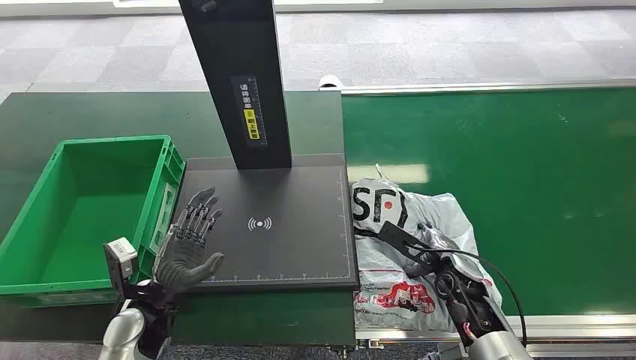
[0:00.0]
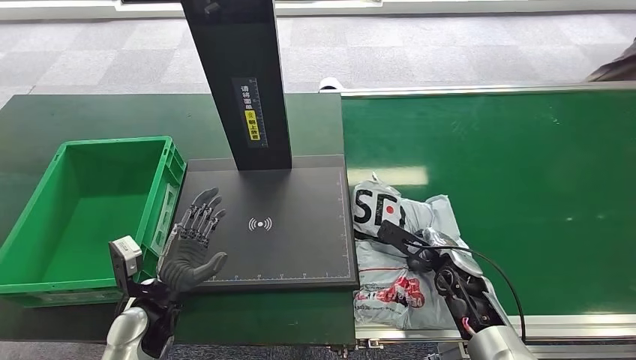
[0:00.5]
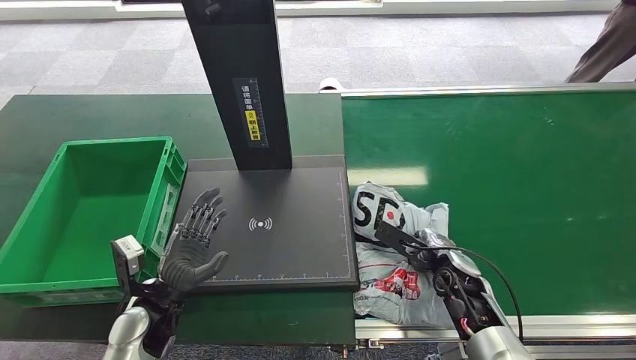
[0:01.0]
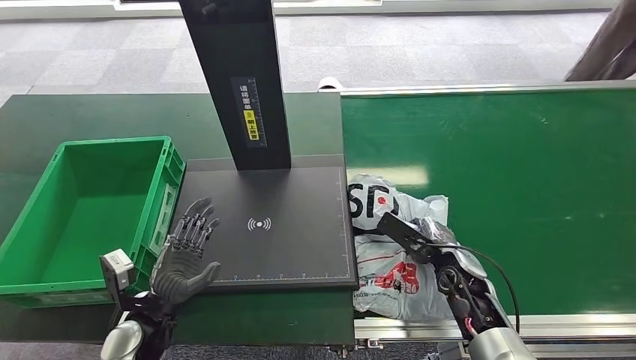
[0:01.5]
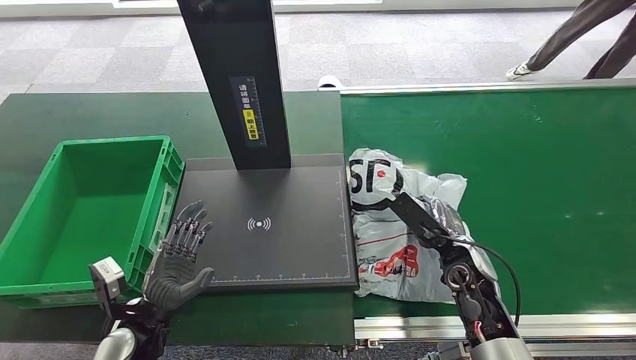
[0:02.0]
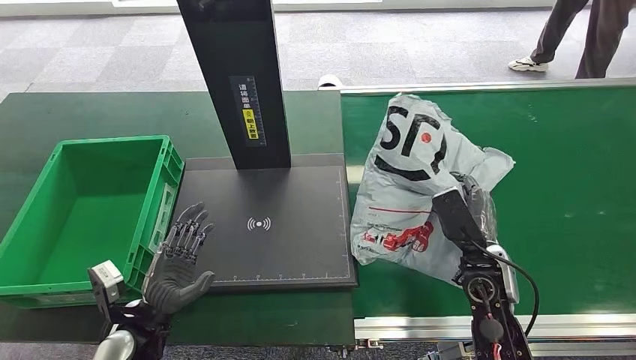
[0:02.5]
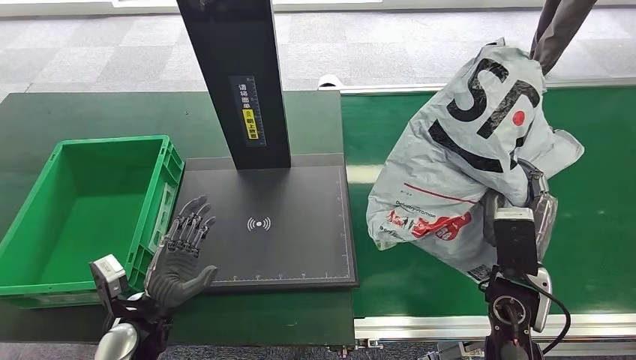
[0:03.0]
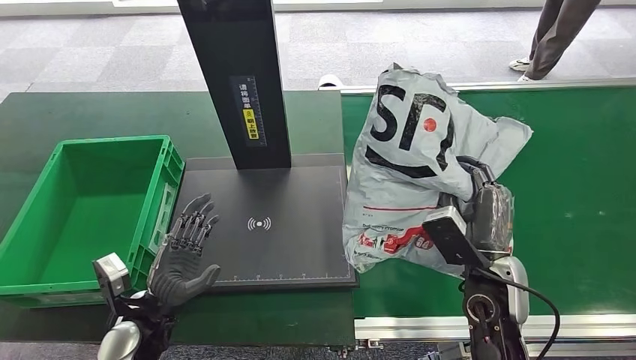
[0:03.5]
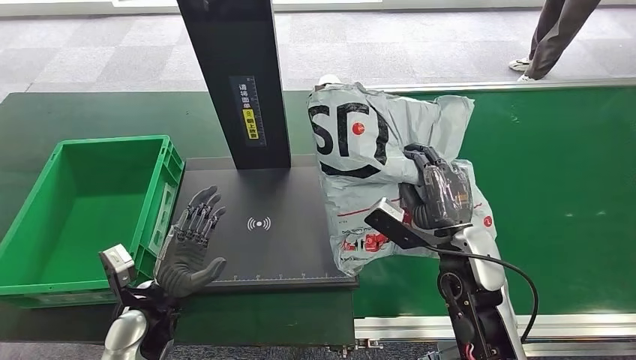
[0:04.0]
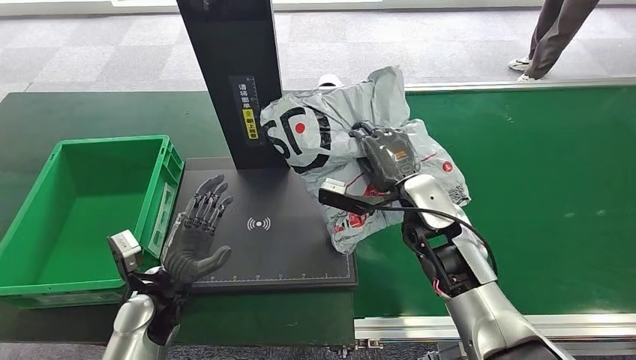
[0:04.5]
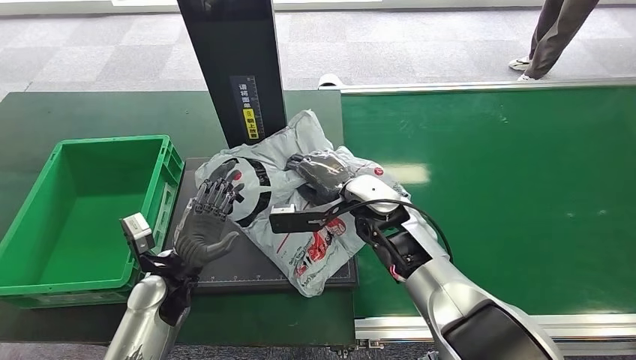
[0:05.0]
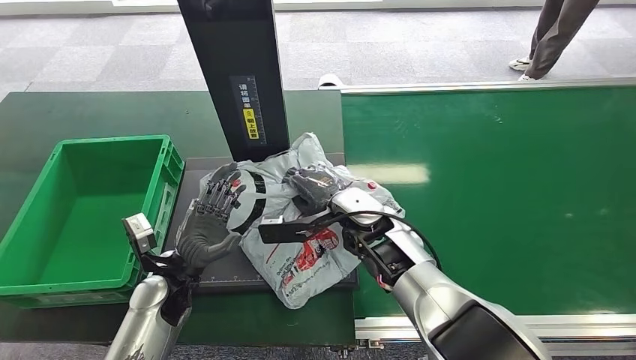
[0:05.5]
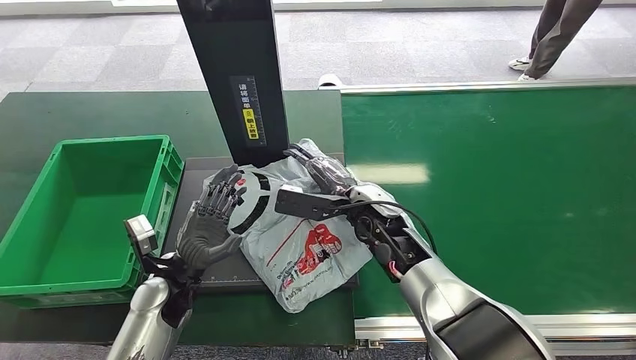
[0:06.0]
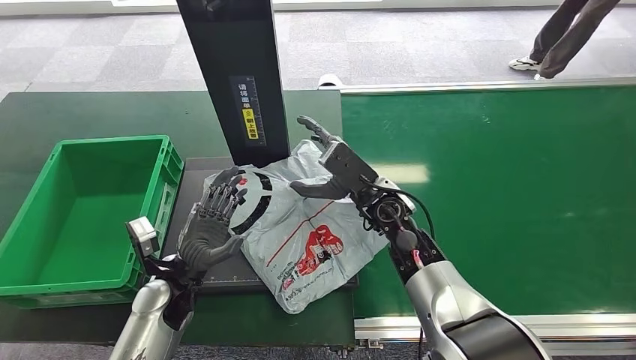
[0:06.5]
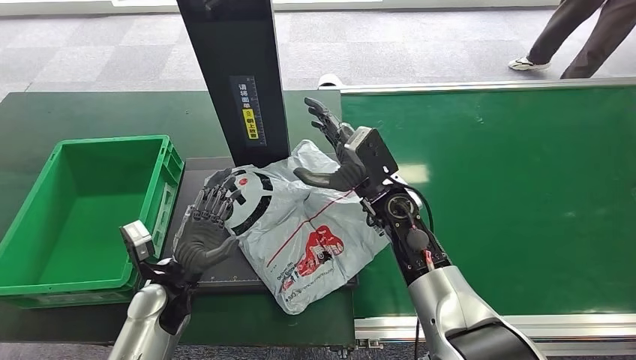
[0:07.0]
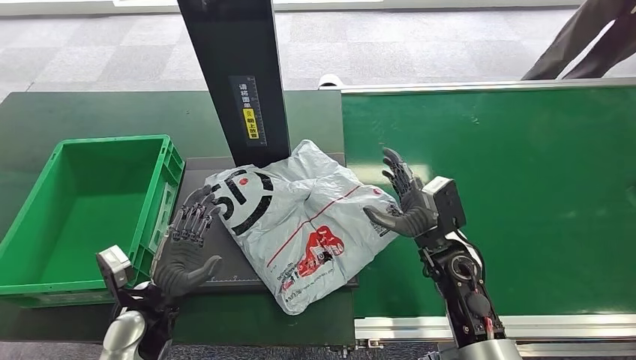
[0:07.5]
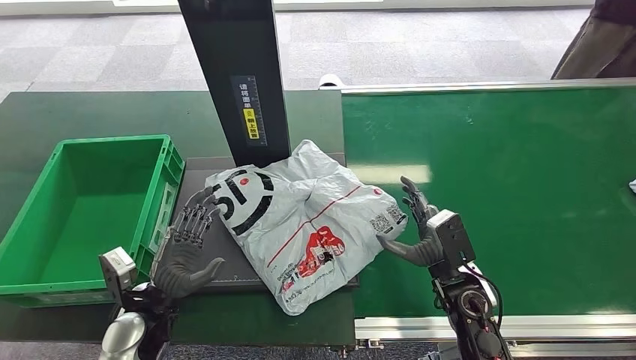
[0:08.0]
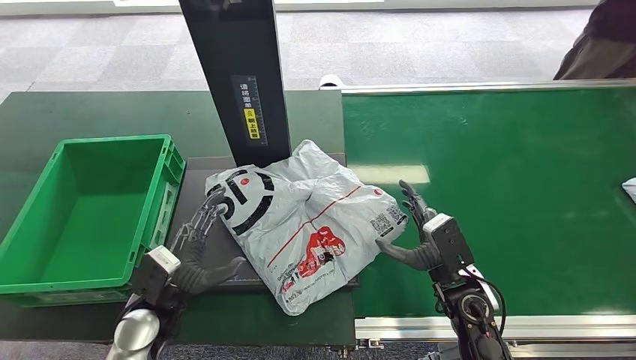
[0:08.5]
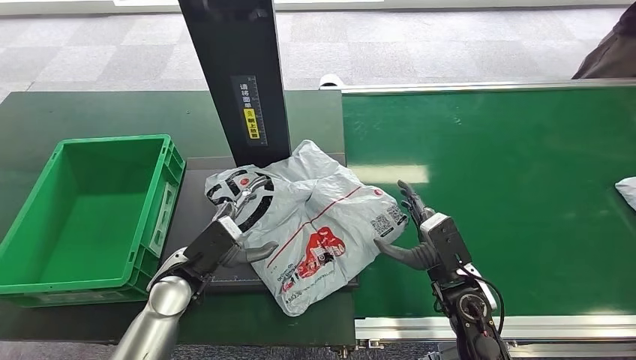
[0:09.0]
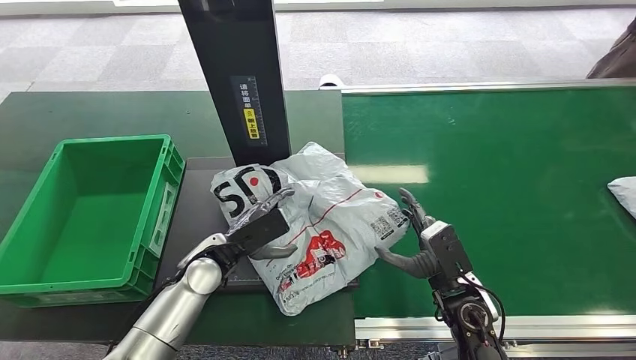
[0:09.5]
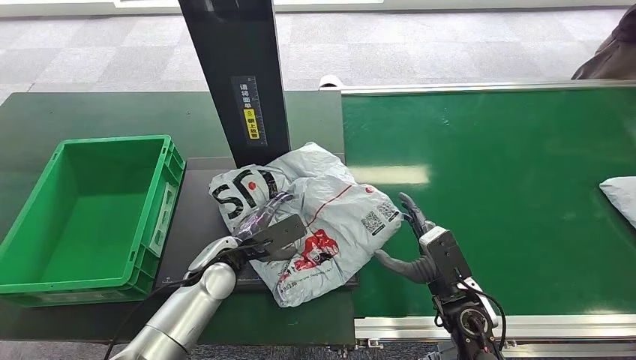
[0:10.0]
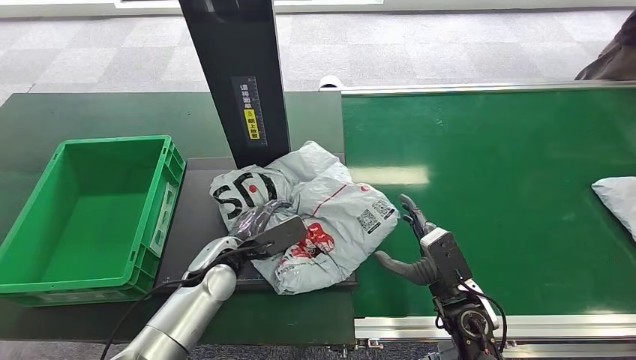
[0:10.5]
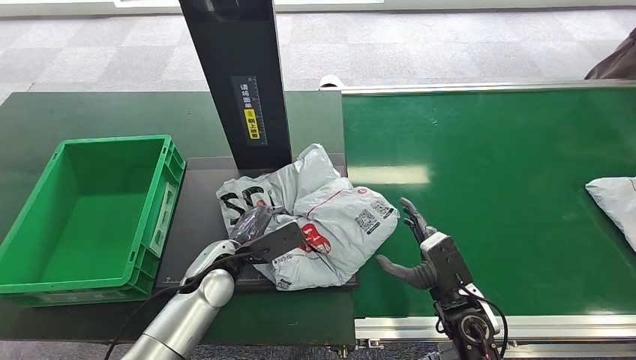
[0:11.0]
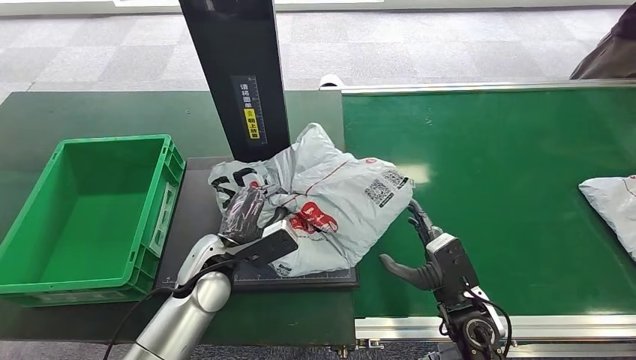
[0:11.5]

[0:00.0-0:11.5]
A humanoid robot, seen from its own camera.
Step, 0:00.0 to 0:02.5: Pick up the package from the conveyor belt.
Step, 0:03.0 to 0:06.5: Place the package onto the inbound machine.
0:06.0 to 0:07.5: The right hand travels to the right and backward by roughly 15 cm. The left hand changes place by some 5 cm.
0:07.5 to 0:09.5: The right hand moves backward, roughly 5 cm; the left hand is displaced forward and to the right by roughly 10 cm.

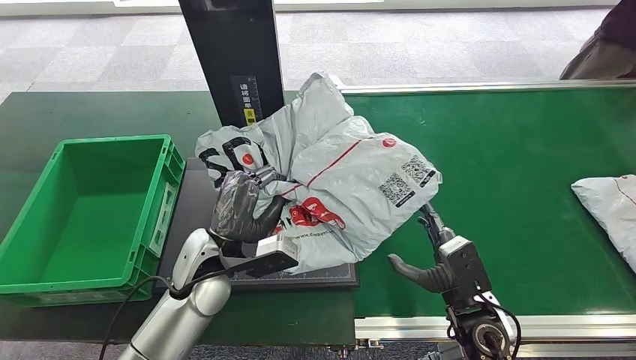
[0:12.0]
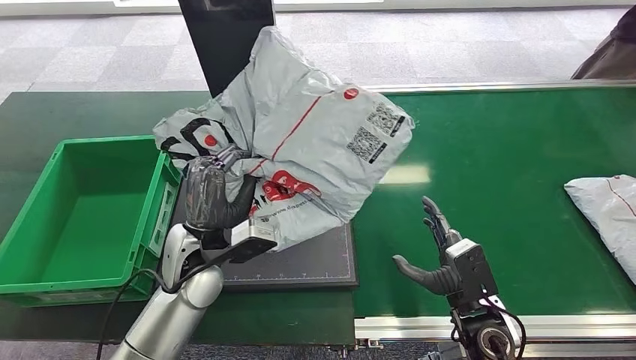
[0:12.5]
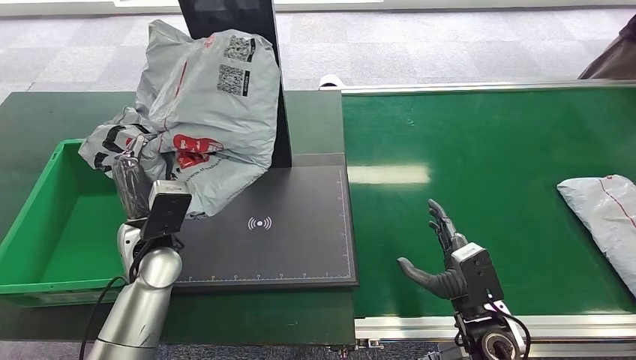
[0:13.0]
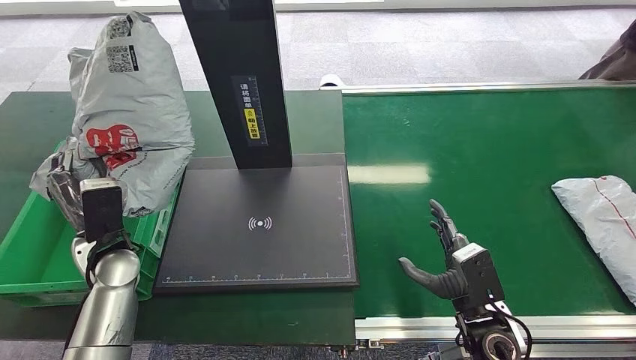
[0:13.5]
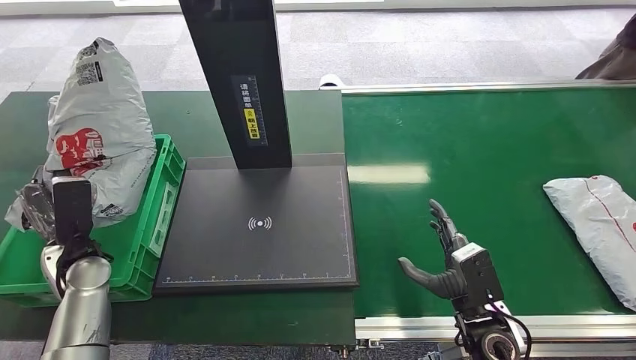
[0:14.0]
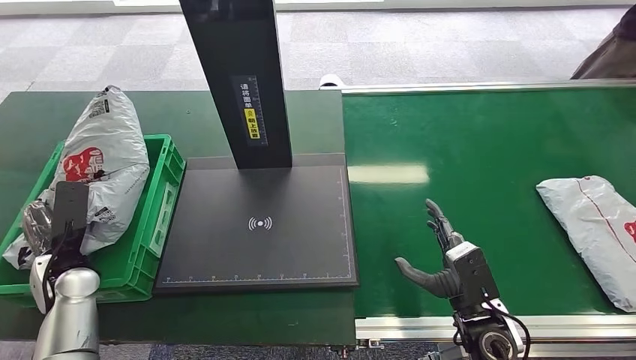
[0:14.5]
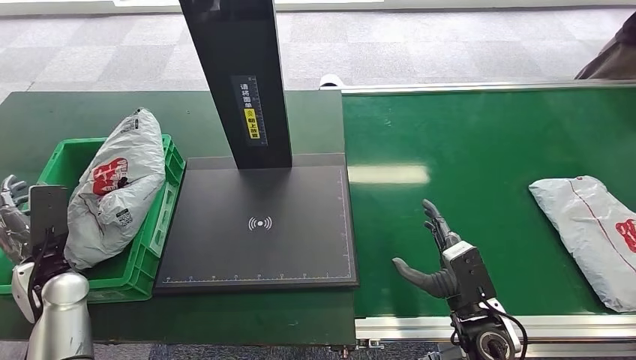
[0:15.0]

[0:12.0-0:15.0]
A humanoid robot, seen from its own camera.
Step, 0:12.0 to 0:15.0: Place the package into the parcel locker.

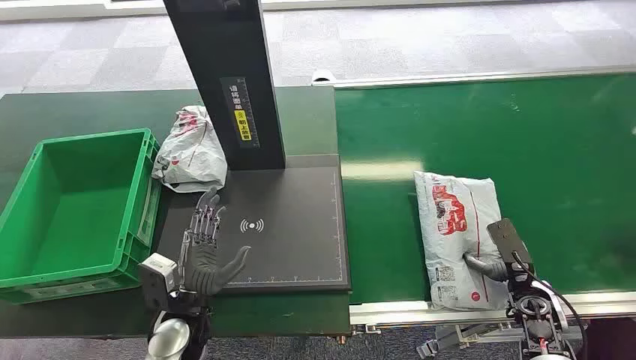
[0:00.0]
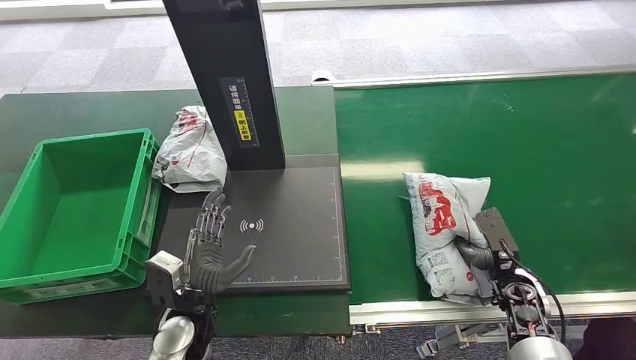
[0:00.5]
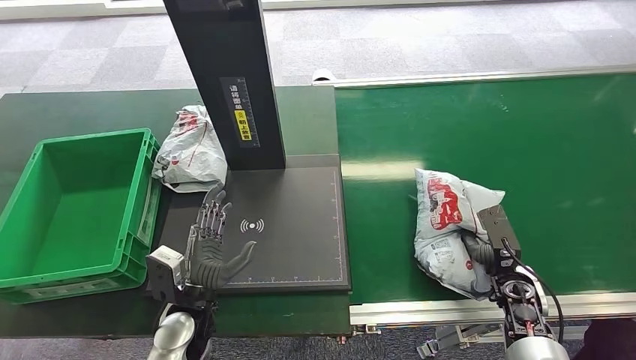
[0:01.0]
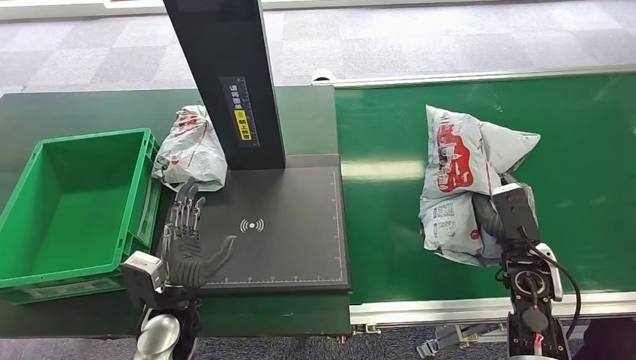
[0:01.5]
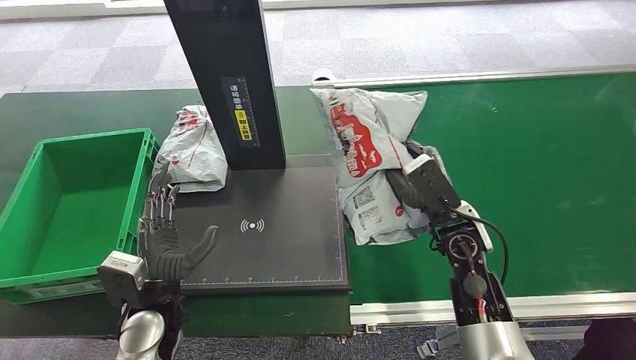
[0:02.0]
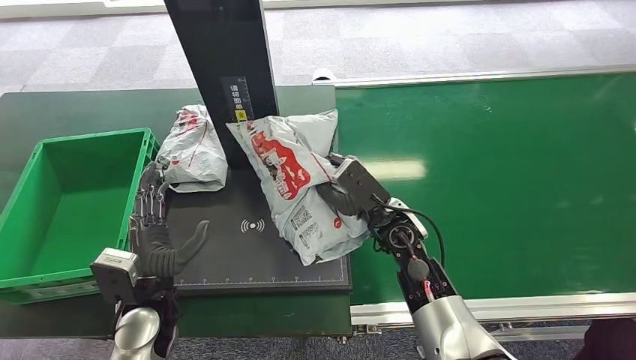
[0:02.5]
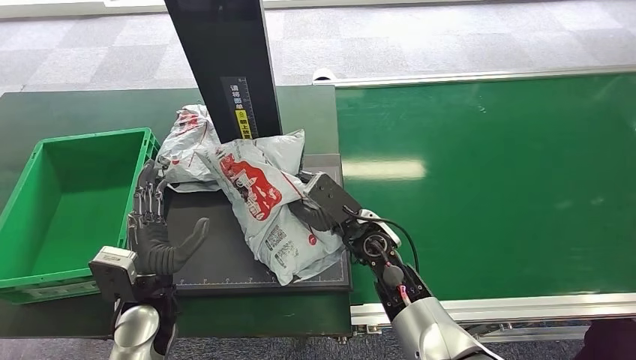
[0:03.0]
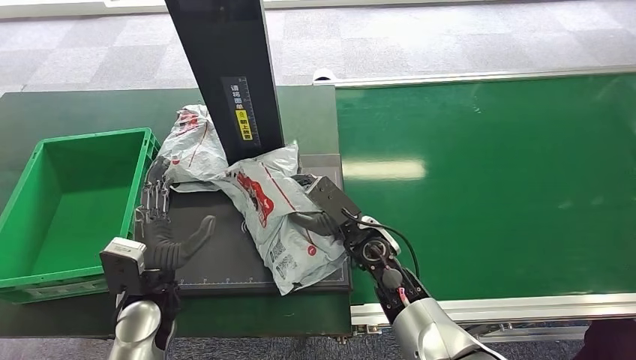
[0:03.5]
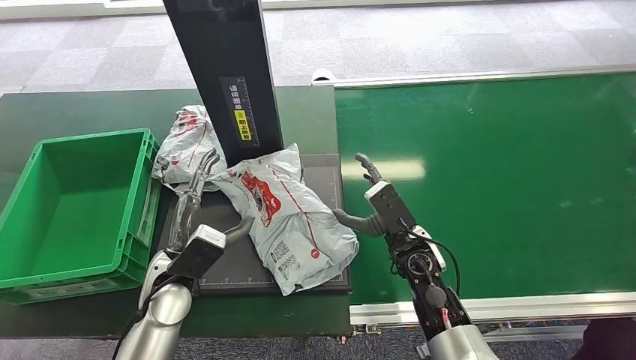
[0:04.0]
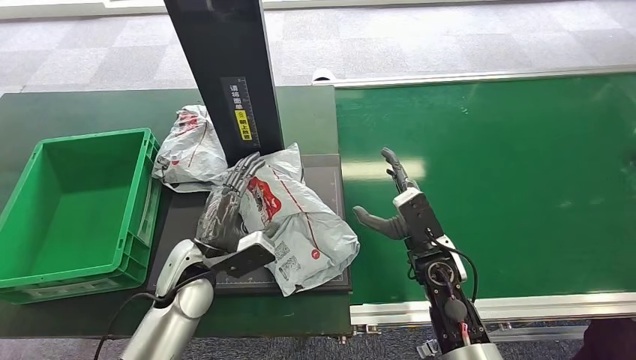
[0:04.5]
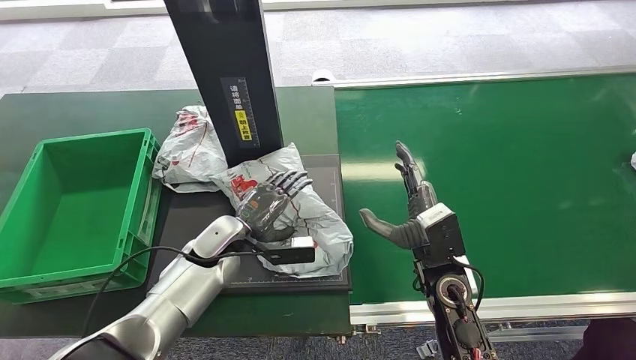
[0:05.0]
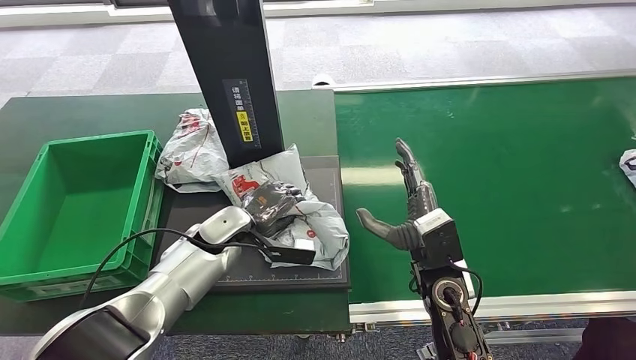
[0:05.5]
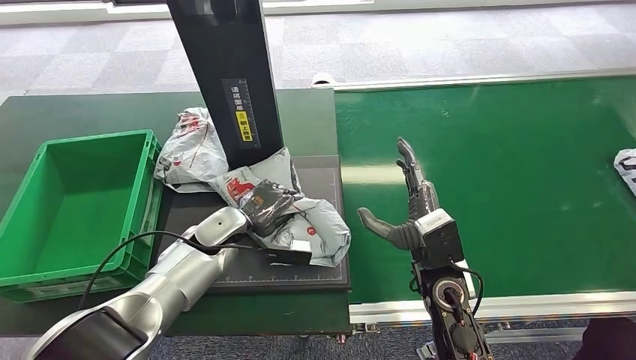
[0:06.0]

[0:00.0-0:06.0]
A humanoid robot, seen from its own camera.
Step, 0:00.0 to 0:01.5: Pick up the package from the conveyor belt.
Step, 0:02.0 to 0:05.5: Place the package onto the inbound machine.
